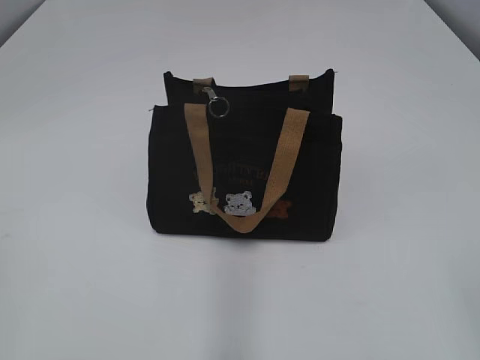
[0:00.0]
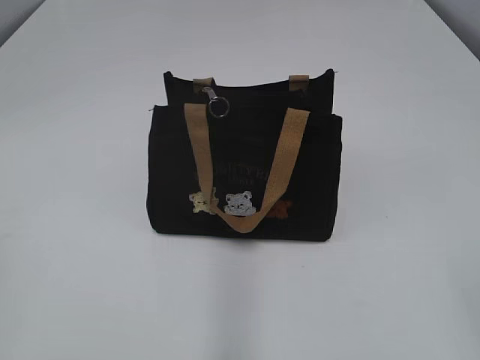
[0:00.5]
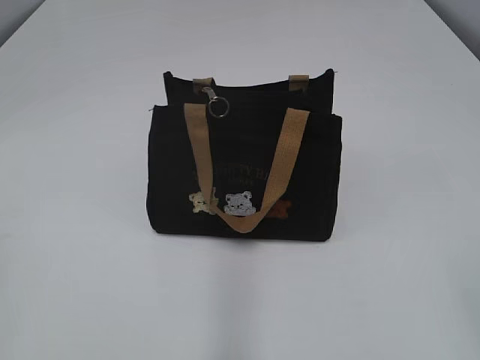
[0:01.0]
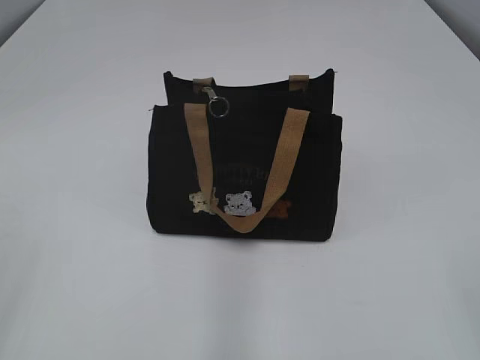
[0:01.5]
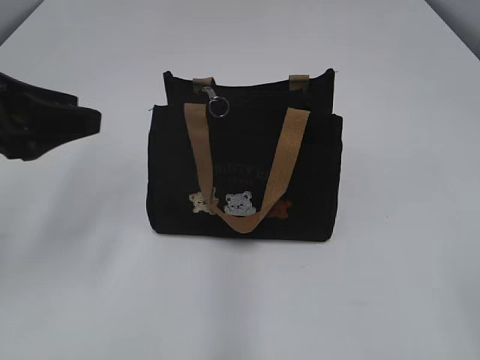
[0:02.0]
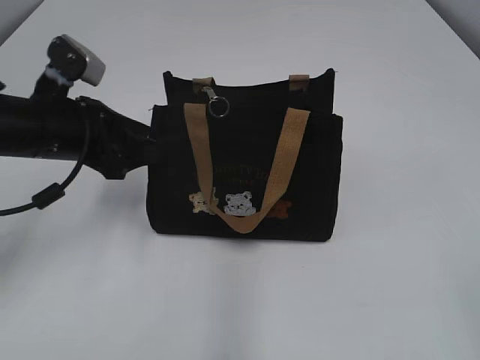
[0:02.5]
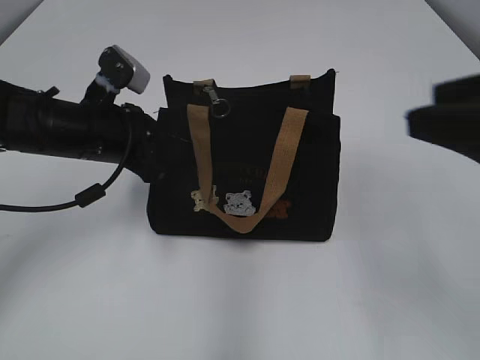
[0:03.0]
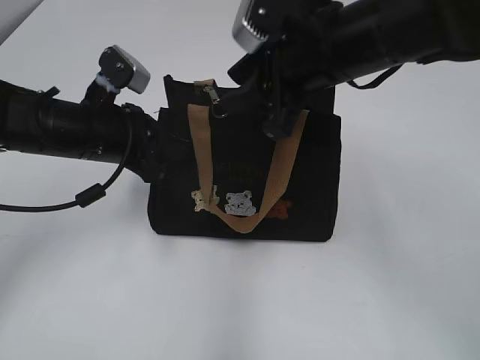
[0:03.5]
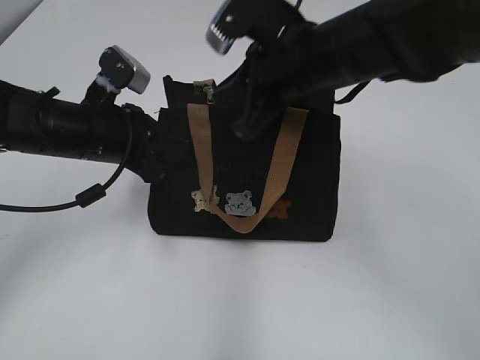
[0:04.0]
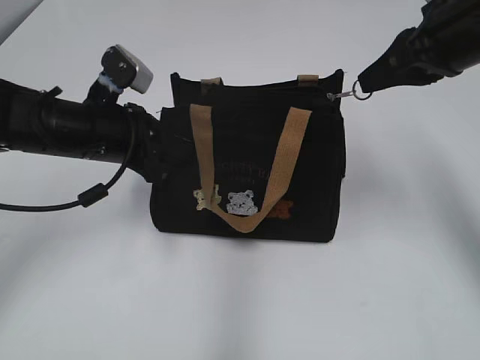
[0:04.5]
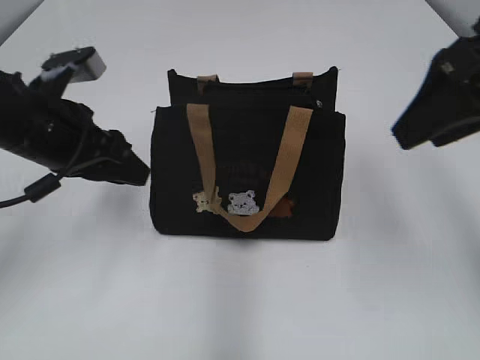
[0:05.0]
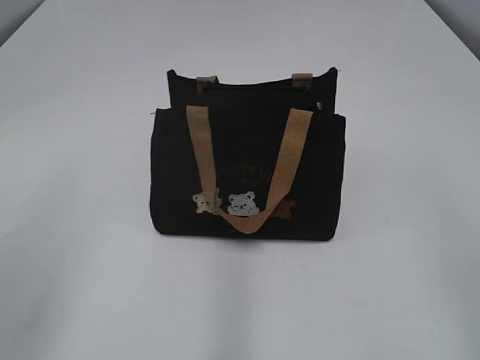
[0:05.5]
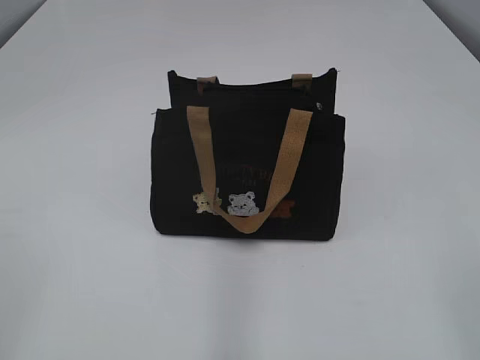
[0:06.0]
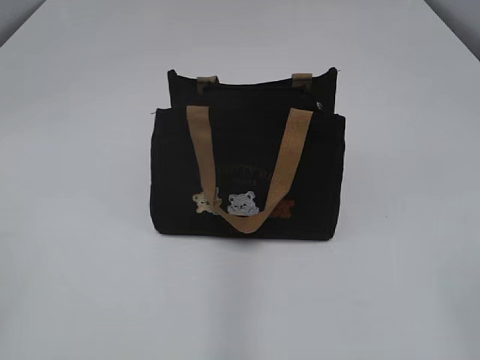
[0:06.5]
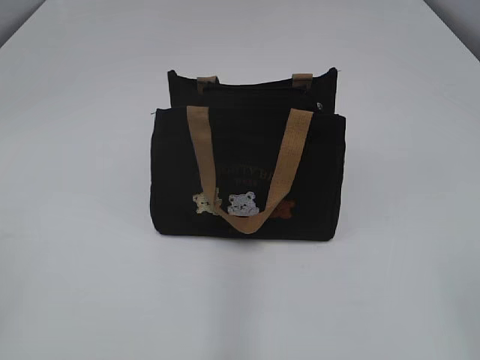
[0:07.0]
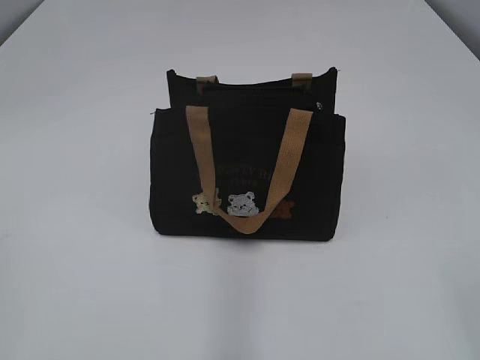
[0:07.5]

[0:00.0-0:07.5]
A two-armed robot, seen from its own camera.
Step, 0:00.0 to 0:04.5: Pull open the zipper with your right hand.
0:02.0 to 0:04.0: The left gripper moves forward, downward and to the right, roughly 15 cm, and closes up; the right gripper moves forward and to the left, roughly 40 cm, and closes its fingers.
0:04.0 to 0:05.5: The left gripper moves backward, upward and to the left, roughly 25 cm, and opens up; the right gripper heads backward and to the right, covering roughly 30 cm, and opens its fingers.
0:05.5 to 0:07.5: The left gripper shifts some 15 cm backward.
